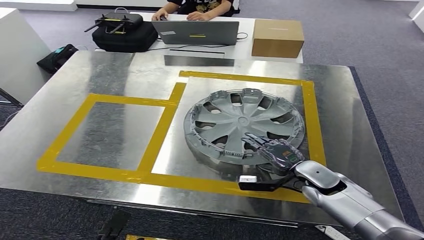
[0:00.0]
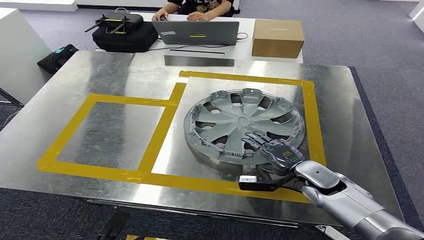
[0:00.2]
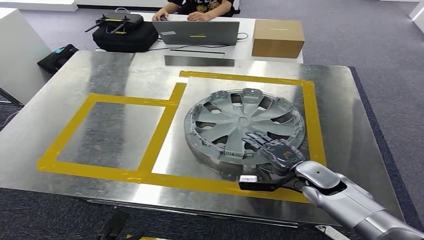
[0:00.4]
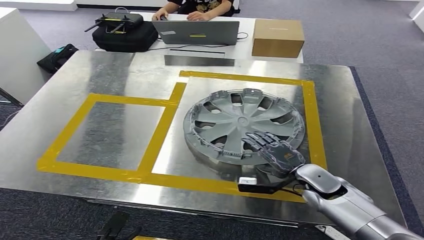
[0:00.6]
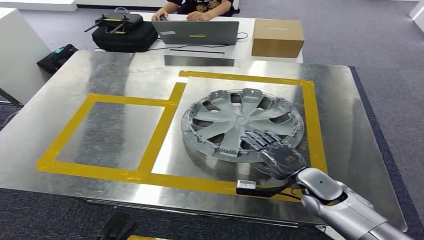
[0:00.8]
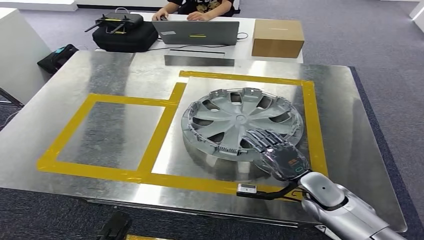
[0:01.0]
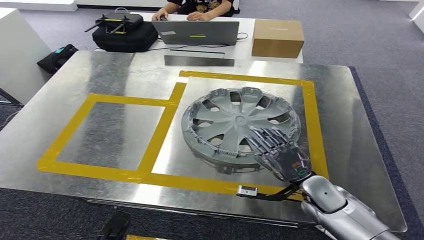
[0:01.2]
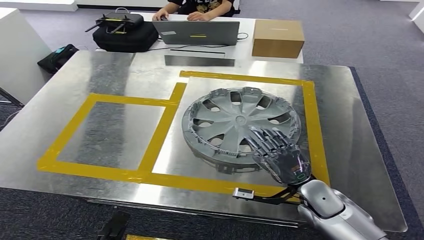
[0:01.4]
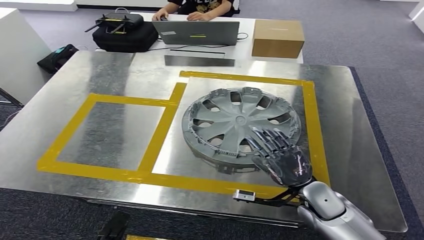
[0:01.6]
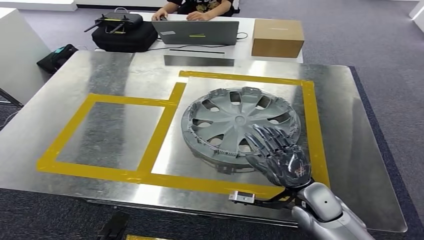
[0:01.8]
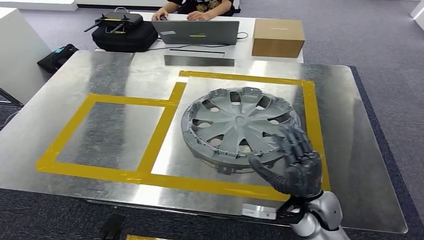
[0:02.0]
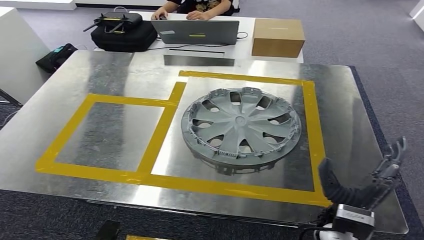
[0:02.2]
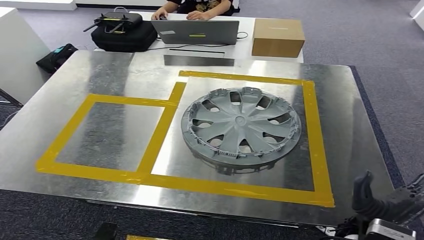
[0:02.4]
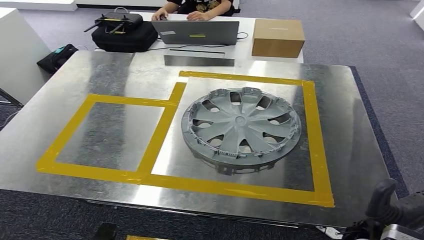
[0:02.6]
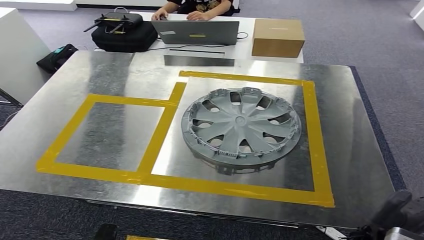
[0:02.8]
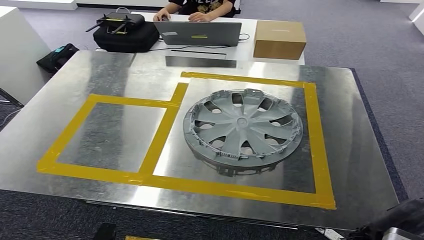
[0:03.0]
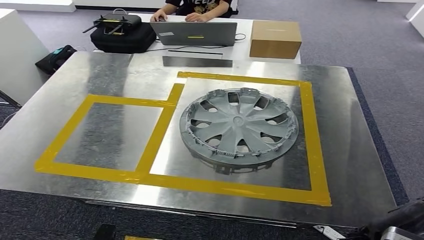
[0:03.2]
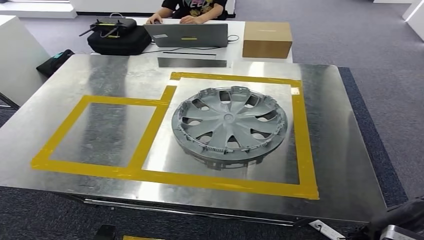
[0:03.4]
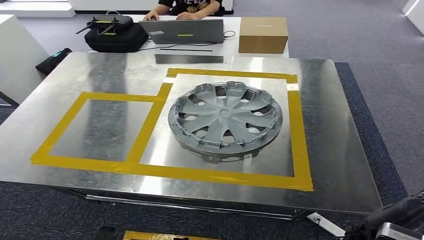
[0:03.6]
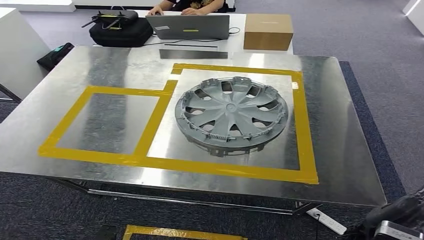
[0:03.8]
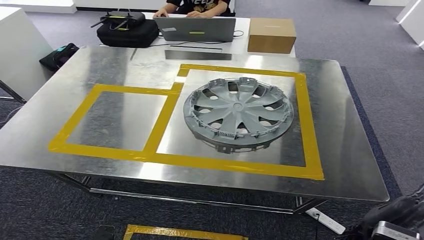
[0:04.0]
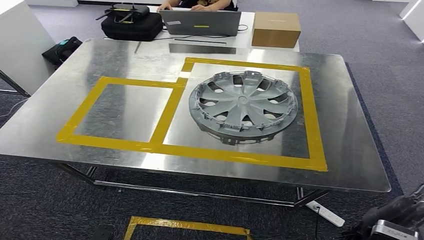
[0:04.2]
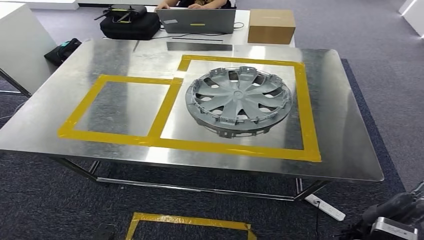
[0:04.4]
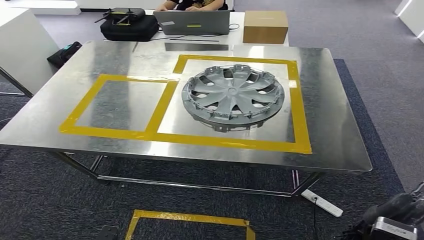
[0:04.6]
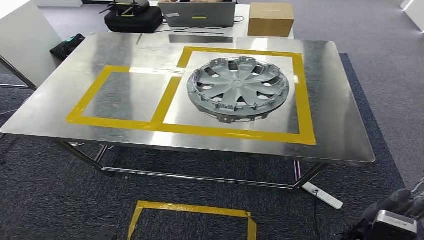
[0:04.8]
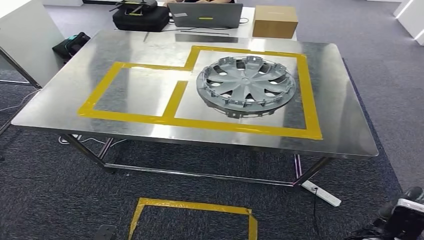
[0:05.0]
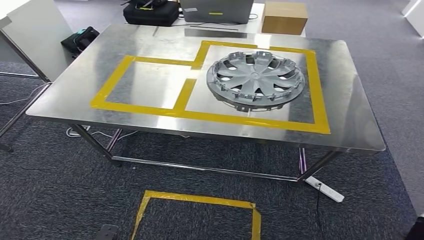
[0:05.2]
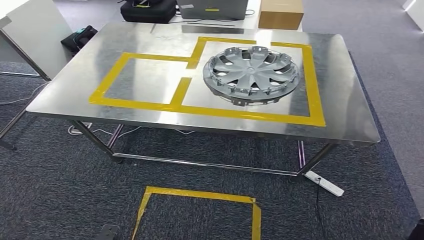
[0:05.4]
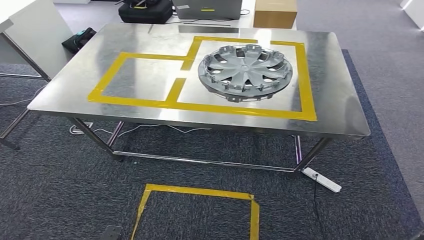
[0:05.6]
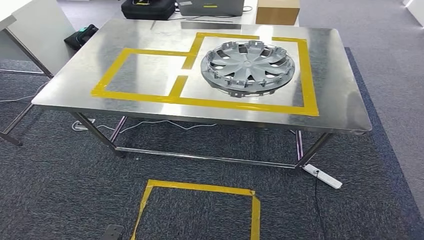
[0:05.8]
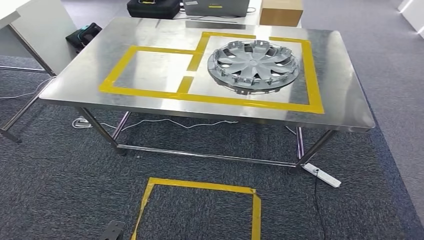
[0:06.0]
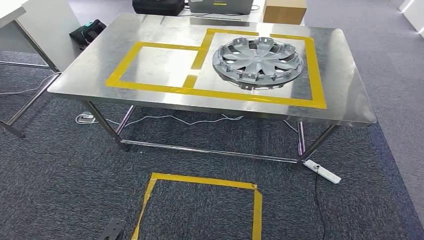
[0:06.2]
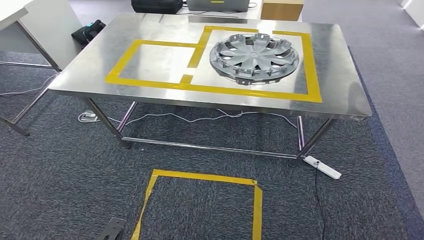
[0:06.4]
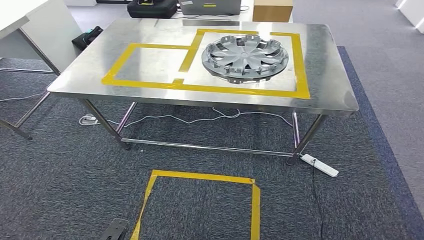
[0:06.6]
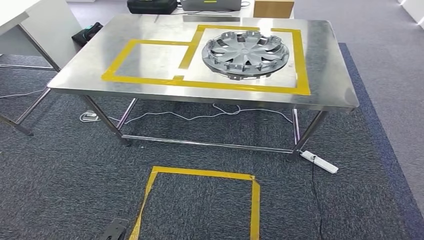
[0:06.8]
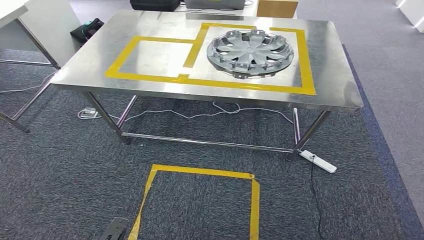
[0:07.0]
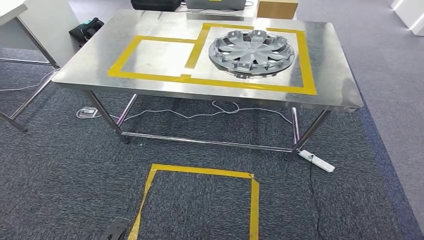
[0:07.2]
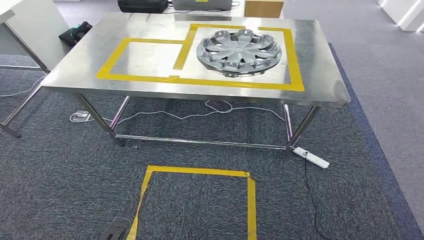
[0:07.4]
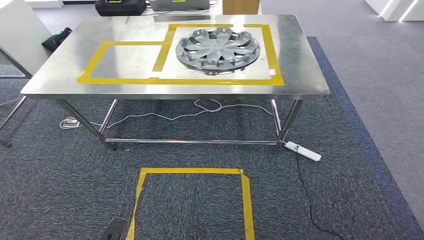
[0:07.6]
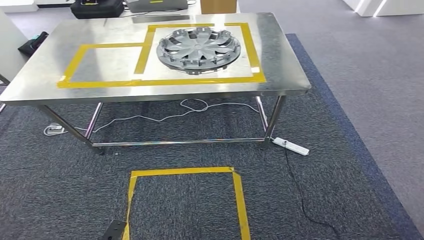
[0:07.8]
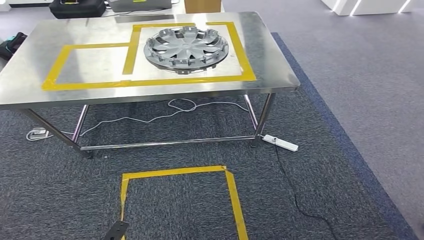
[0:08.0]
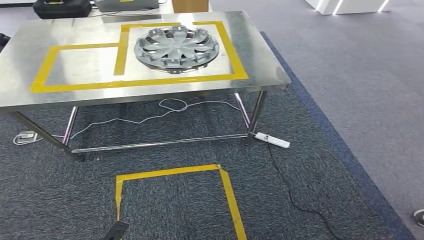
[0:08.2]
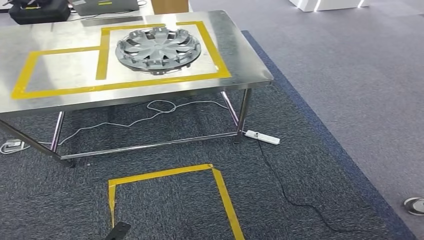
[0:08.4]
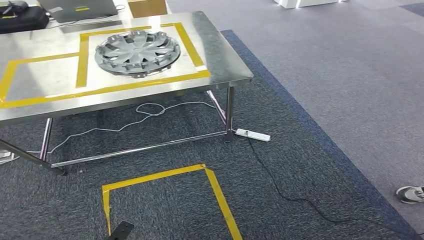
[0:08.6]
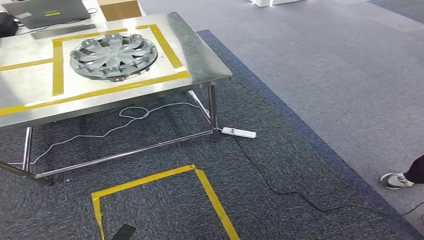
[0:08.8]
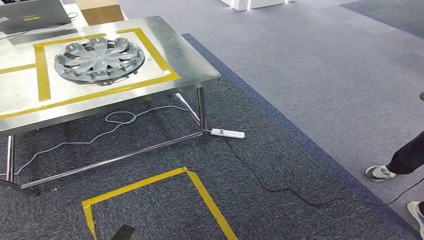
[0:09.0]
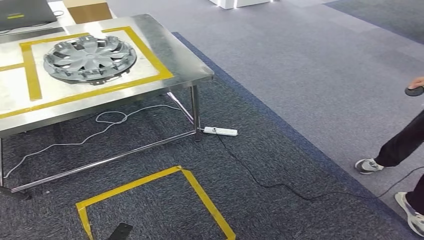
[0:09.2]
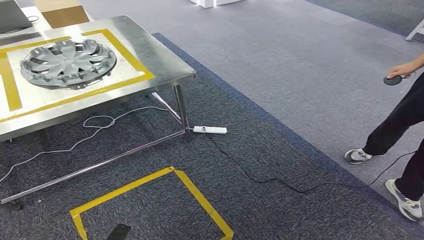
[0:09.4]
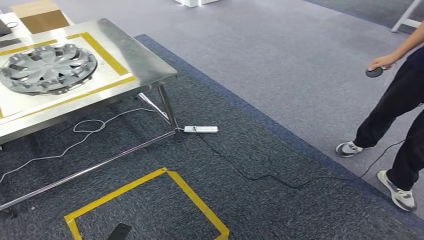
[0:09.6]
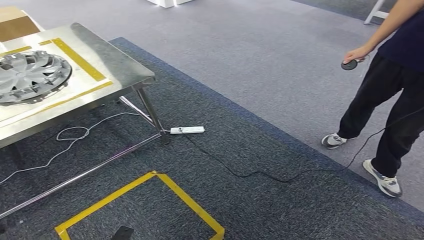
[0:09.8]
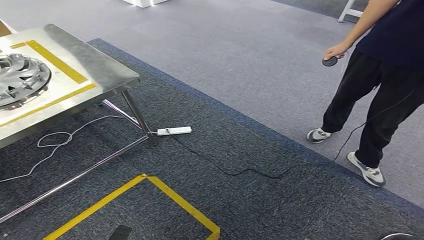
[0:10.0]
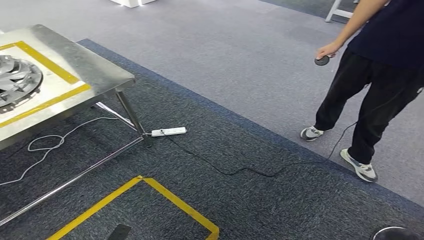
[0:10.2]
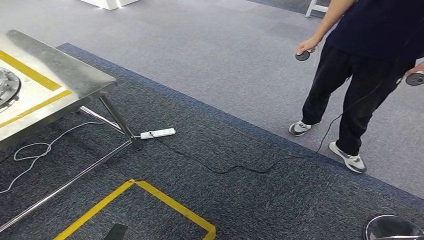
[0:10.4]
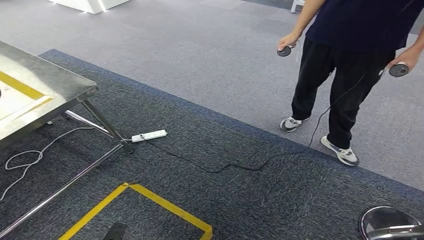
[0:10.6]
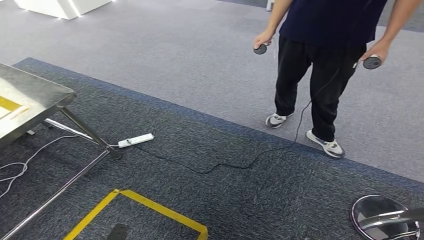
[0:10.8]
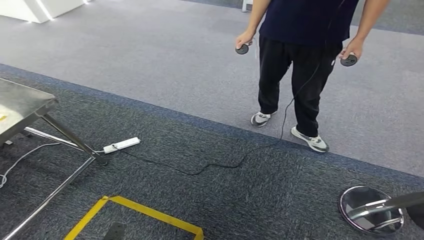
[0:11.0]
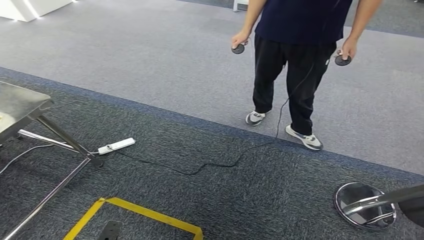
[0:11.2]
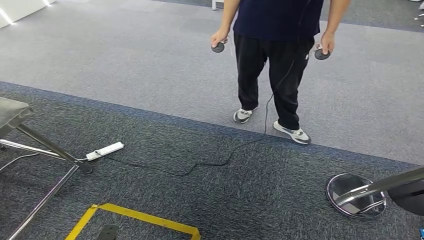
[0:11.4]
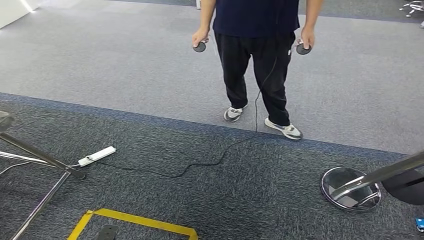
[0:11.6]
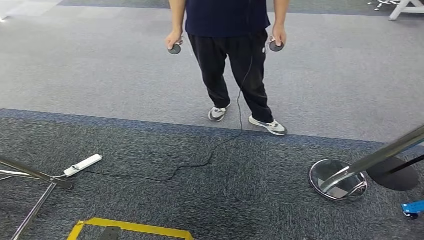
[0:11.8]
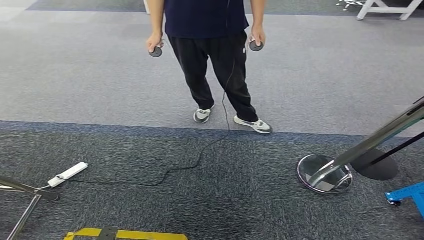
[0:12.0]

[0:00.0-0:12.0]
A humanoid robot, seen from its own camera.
Step, 0:00.0 to 0:03.2: Insert the small parts into the corresponding holes on the workbench.
0:00.0 to 0:01.6: The right hand shifts some 5 cm backward.
0:01.6 to 0:03.0: The right hand moves backward and to the right, about 10 cm.

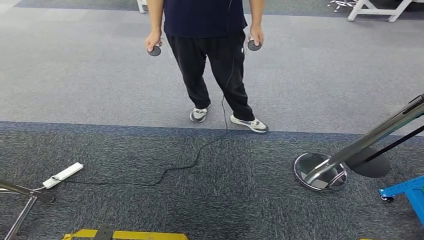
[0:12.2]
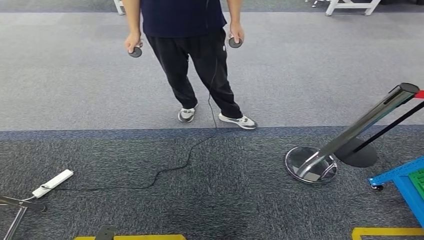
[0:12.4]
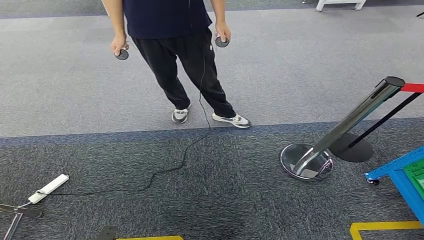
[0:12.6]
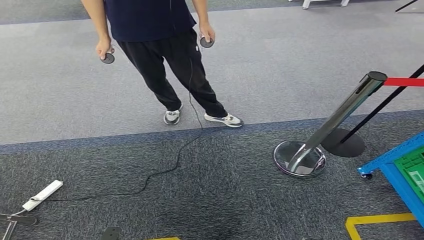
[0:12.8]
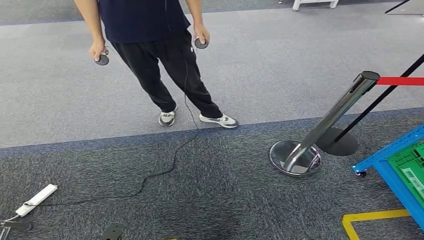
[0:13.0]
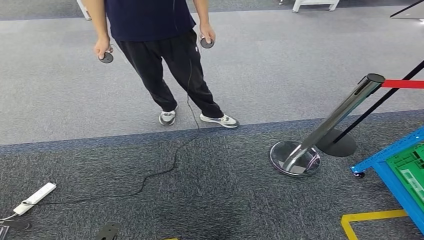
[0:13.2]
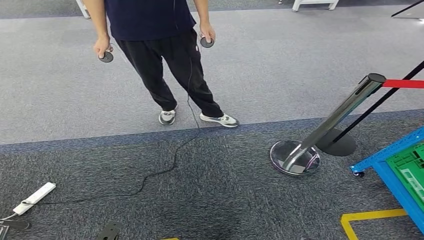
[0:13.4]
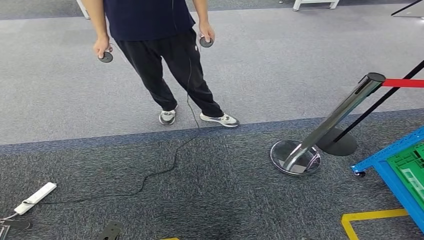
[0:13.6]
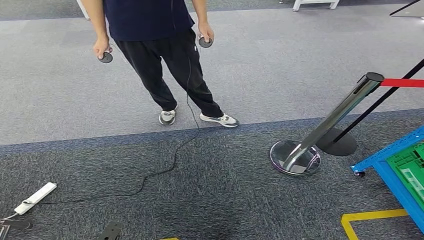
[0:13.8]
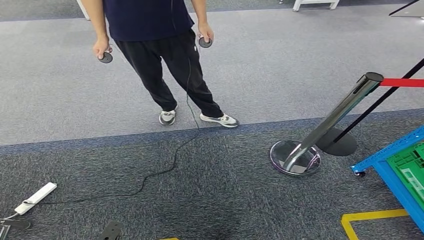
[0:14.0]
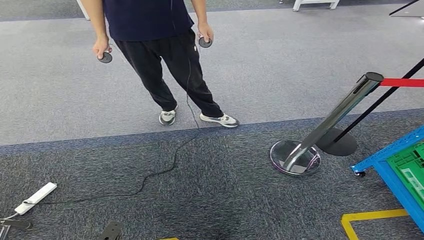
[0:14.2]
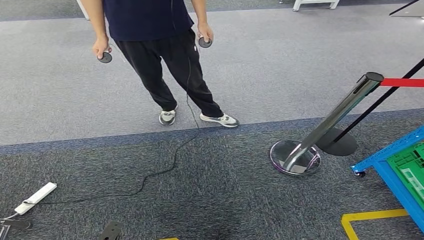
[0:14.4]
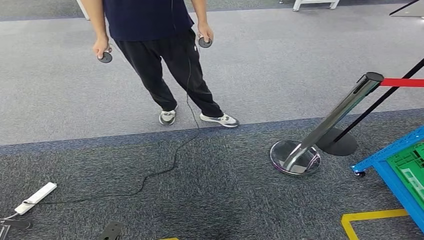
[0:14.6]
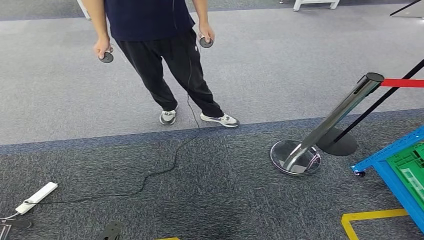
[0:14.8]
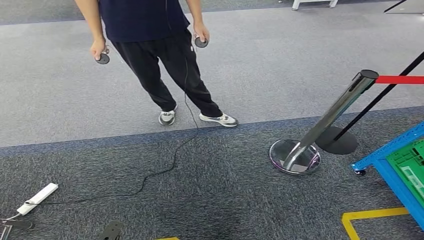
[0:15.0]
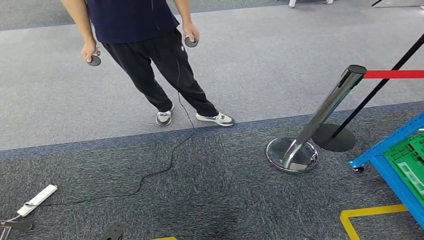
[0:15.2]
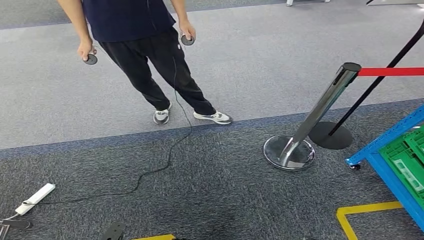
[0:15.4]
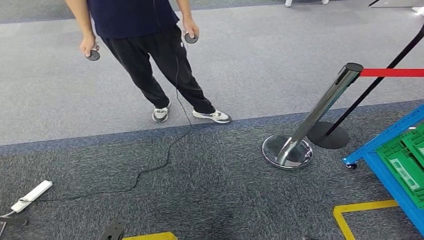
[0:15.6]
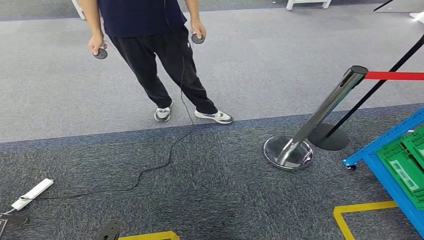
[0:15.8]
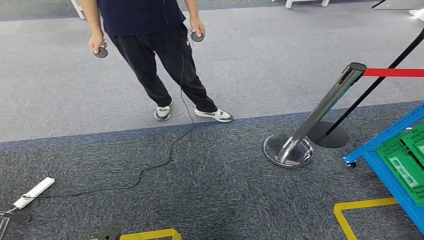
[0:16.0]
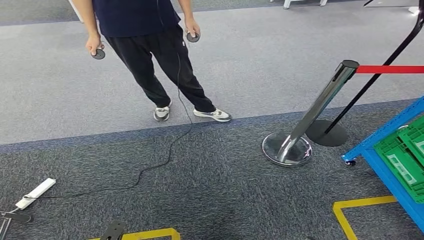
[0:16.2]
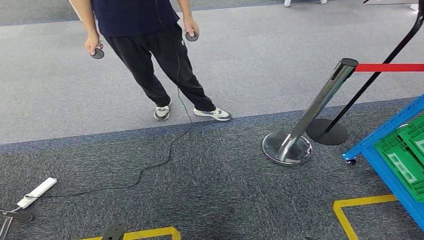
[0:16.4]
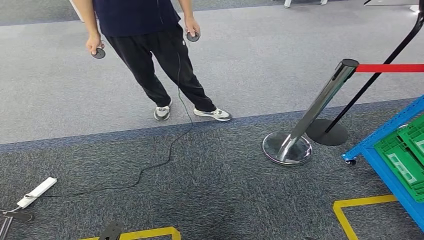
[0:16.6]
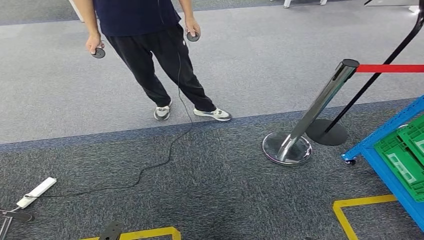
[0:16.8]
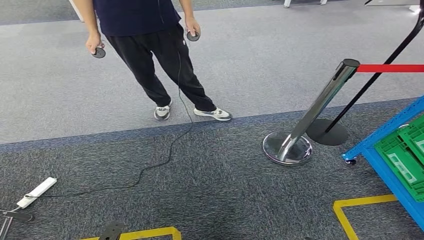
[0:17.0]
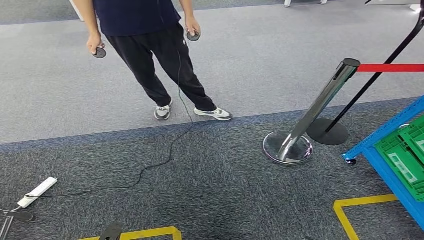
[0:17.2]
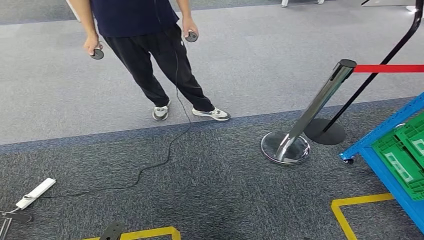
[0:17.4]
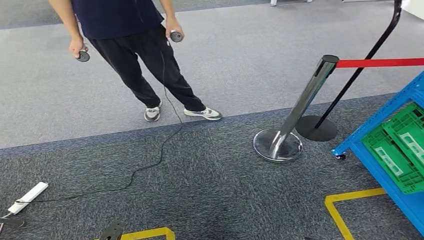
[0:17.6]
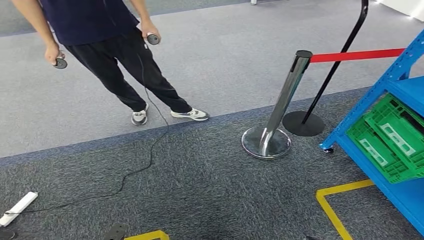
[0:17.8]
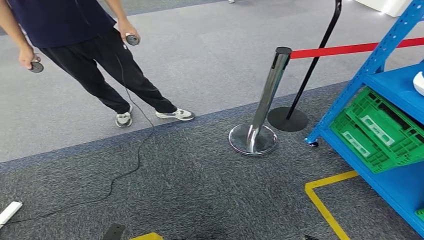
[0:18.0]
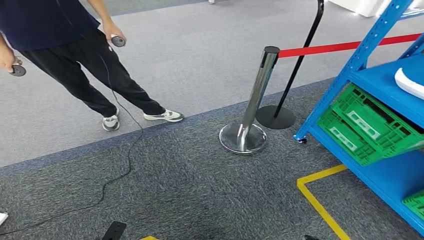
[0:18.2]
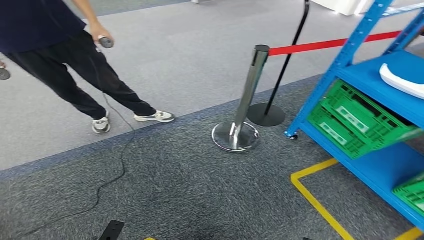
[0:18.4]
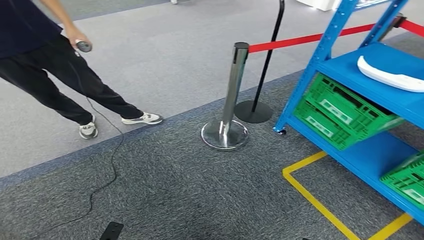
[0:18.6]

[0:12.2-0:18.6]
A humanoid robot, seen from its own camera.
0:13.8 to 0:17.0: Both hands stay put.
